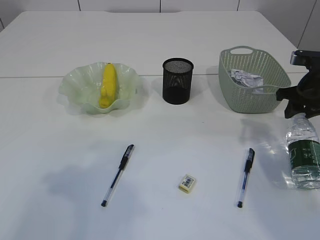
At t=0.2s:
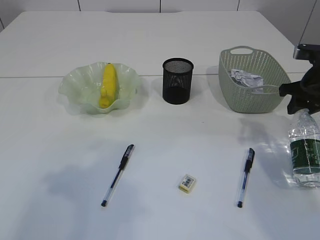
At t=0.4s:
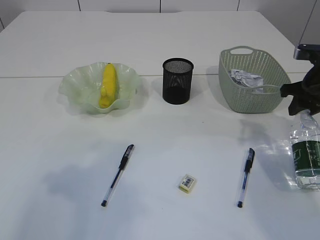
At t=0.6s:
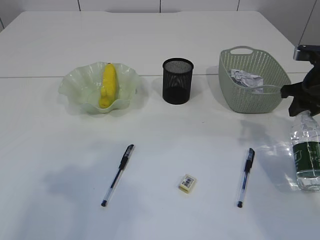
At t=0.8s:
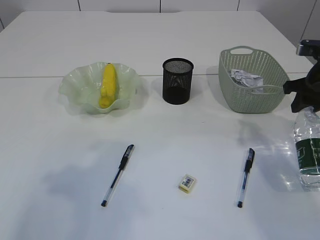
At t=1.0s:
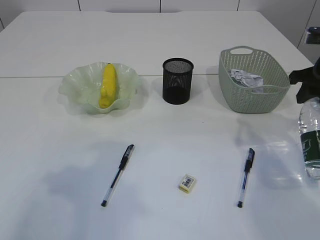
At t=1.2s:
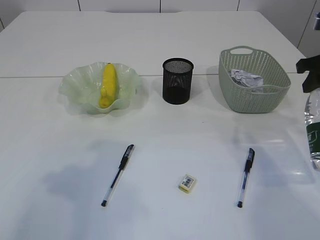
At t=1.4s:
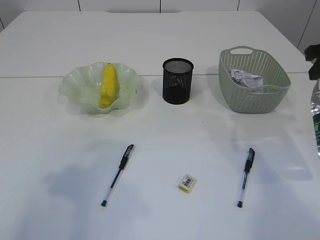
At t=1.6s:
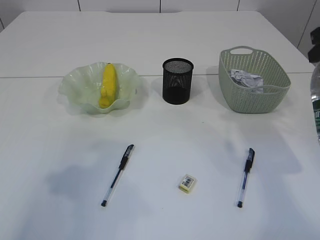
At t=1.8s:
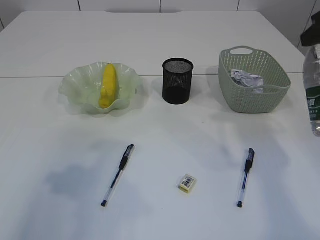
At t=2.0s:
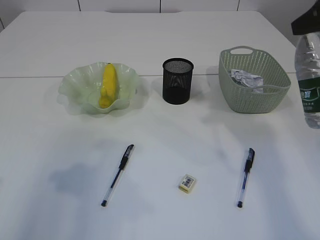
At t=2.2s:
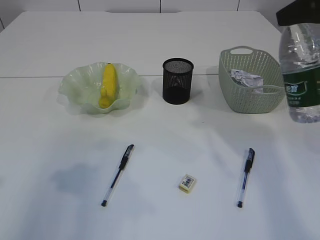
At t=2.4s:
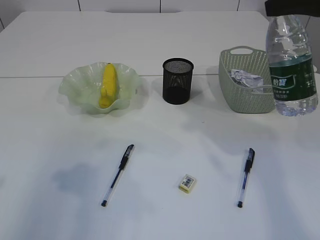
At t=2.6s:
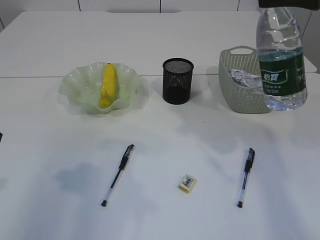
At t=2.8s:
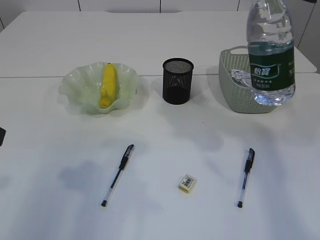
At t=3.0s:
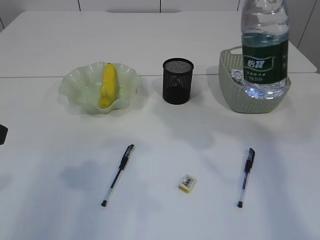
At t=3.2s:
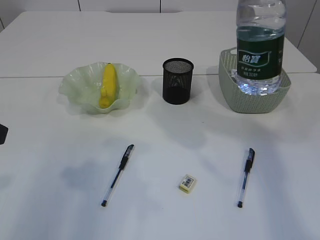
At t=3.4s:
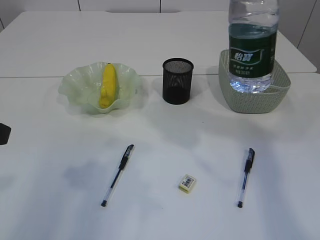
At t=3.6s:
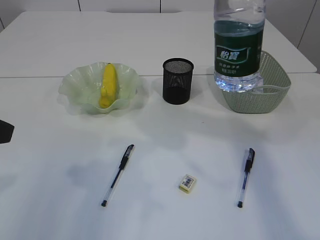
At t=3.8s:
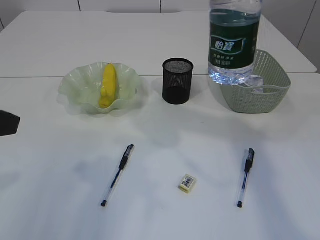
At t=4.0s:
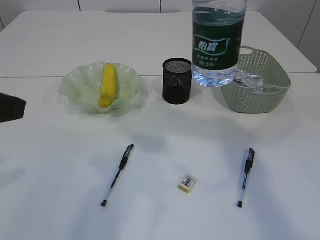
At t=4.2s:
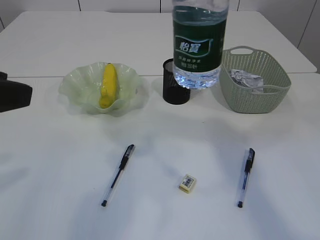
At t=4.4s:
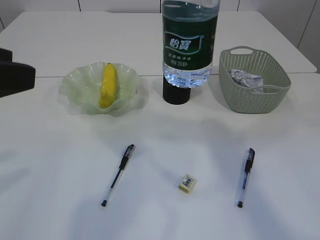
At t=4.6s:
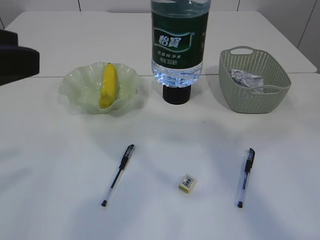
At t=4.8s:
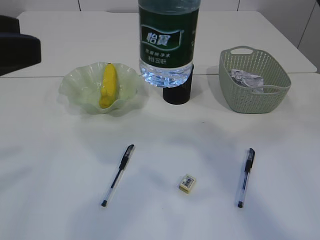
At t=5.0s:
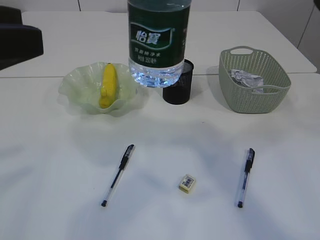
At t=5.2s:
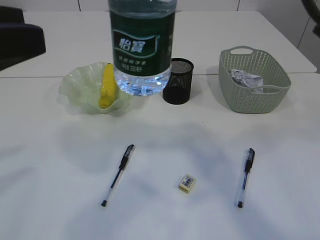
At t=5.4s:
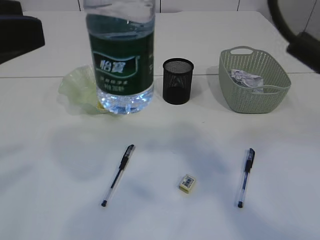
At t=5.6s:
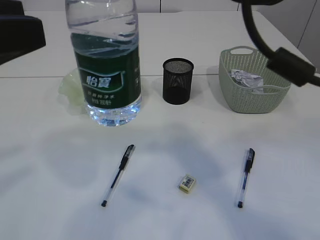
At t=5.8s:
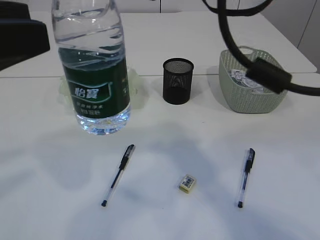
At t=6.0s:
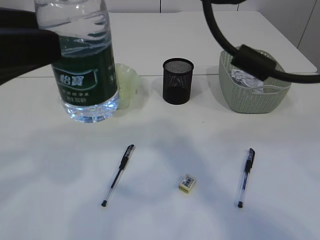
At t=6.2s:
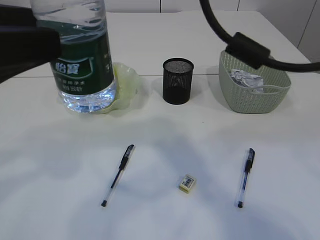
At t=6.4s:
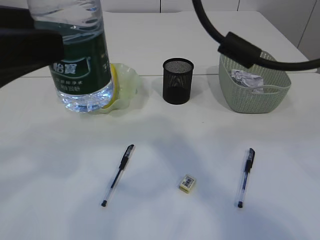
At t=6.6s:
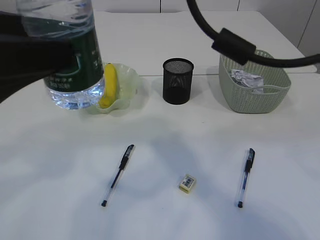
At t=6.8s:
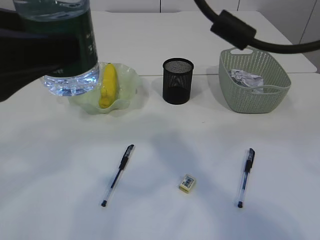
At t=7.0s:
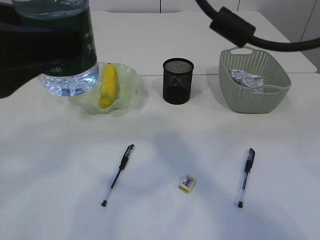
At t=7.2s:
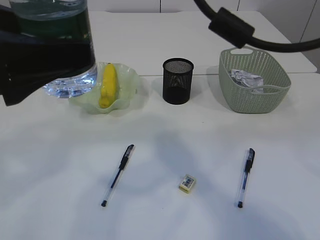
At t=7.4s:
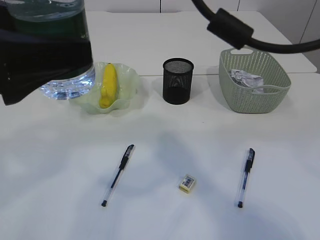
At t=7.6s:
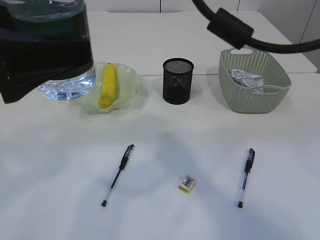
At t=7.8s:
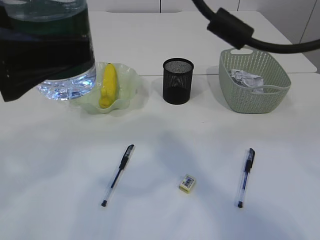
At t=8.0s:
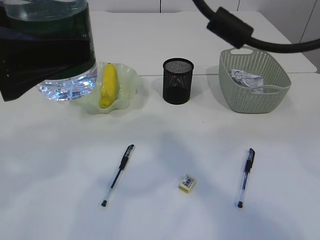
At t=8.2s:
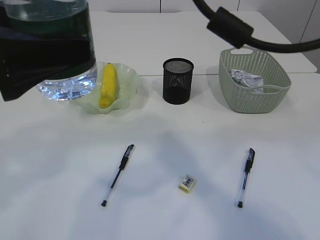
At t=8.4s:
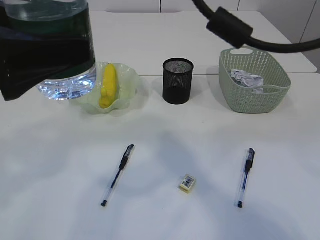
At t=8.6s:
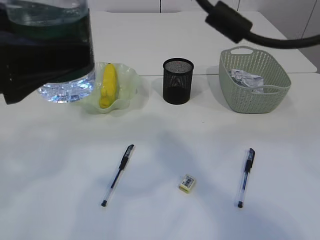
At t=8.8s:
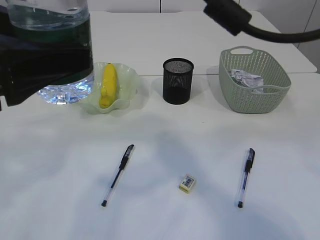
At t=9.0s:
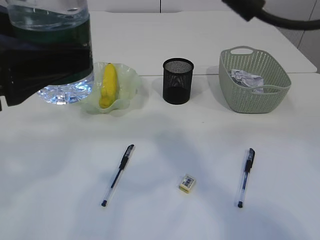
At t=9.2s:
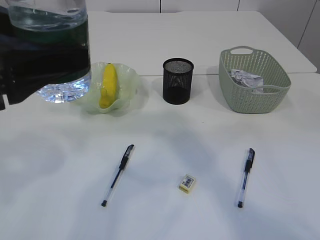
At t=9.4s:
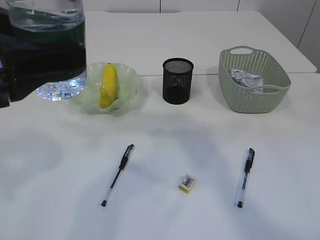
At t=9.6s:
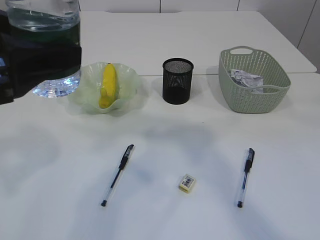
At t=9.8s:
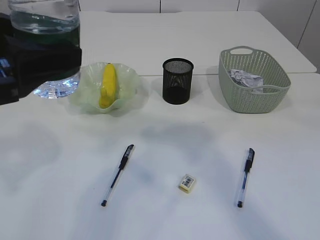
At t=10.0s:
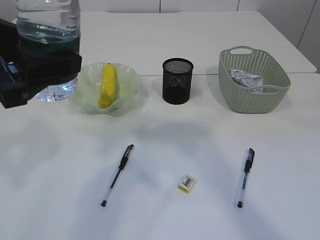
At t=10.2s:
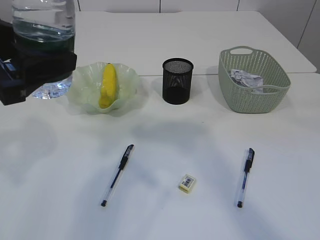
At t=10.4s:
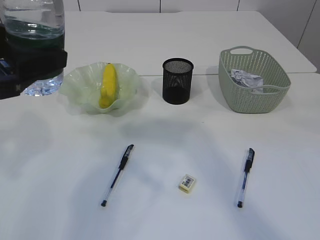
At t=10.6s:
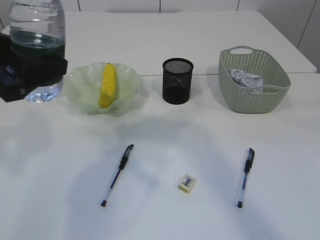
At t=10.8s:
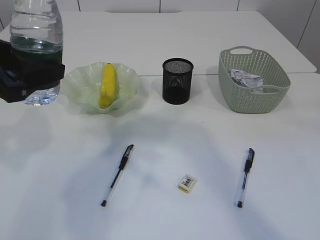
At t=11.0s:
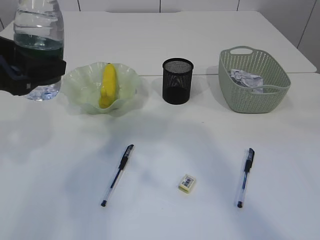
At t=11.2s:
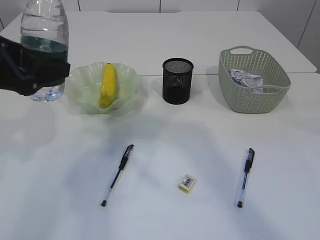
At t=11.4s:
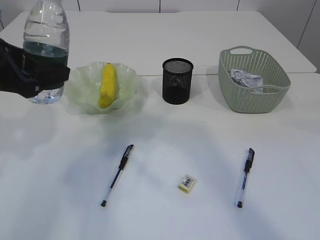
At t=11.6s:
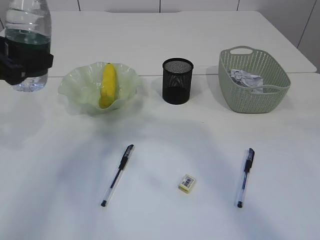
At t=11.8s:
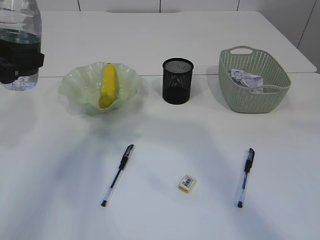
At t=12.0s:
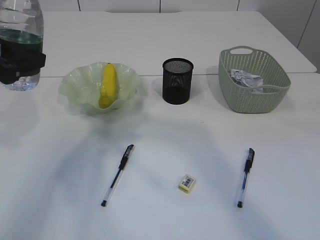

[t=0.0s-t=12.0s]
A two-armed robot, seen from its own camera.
Step, t=1.0s to t=9.8s: transfer the bottle to the left arm.
t=0.0s to t=1.6s: The right gripper shifts roughly 15 cm upward and backward.
t=1.6s to t=3.0s: The right gripper is displaced upward and to the left by some 10 cm.
t=3.0s to t=4.4s: The right gripper travels to the left by about 10 cm. Meanwhile the left gripper shifts by about 5 cm.
t=4.4s to t=6.0s: The right gripper travels to the left by approximately 10 cm.
t=6.0s to t=9.0s: The grippers stay close to where they were, moving slightly.
t=9.0s to t=10.4s: The left gripper moves about 5 cm, while the right gripper moves to the right, about 5 cm.
t=10.4s to t=12.0s: The left gripper goes some 10 cm forward and to the left.

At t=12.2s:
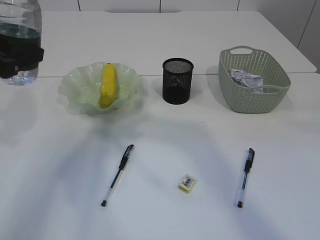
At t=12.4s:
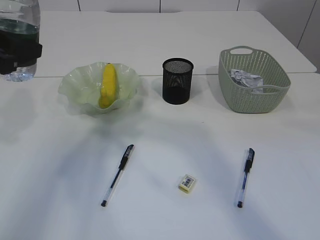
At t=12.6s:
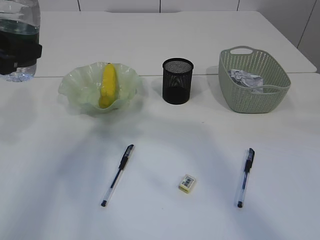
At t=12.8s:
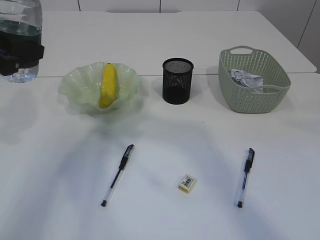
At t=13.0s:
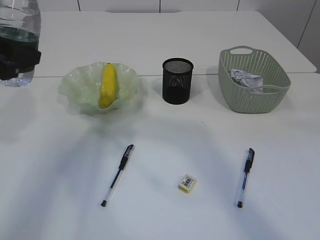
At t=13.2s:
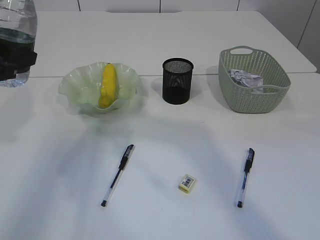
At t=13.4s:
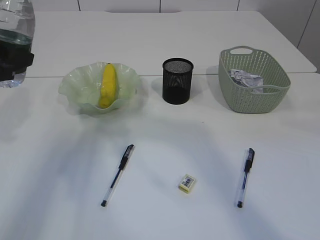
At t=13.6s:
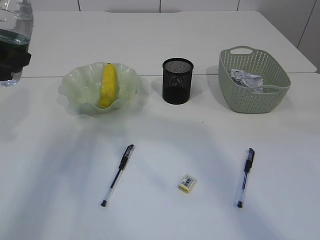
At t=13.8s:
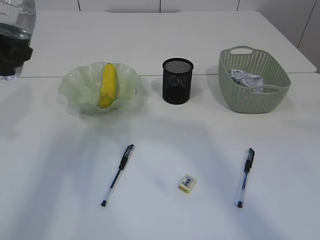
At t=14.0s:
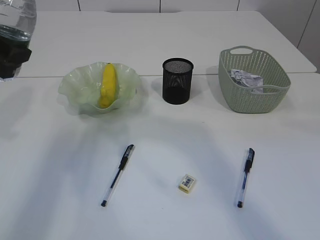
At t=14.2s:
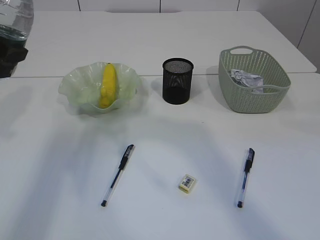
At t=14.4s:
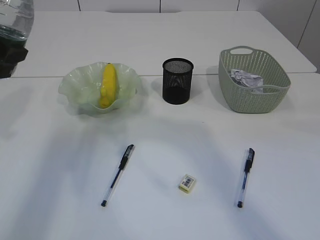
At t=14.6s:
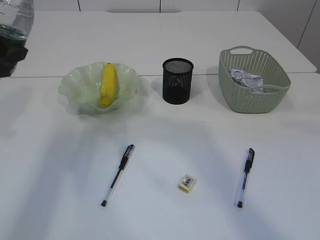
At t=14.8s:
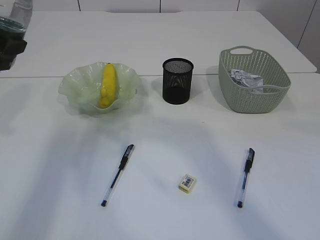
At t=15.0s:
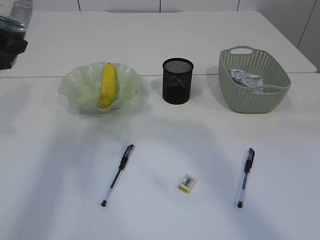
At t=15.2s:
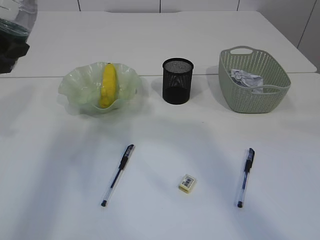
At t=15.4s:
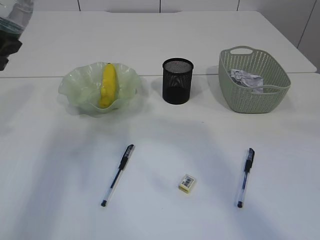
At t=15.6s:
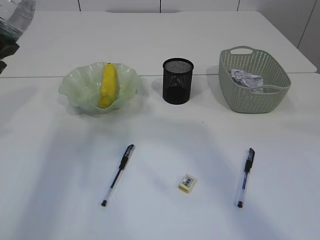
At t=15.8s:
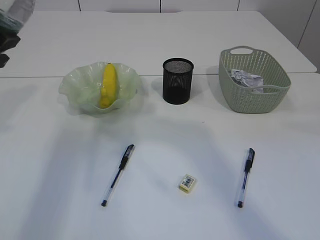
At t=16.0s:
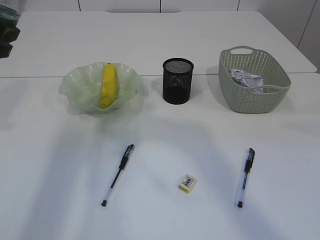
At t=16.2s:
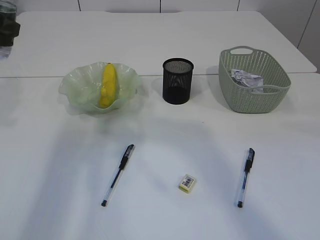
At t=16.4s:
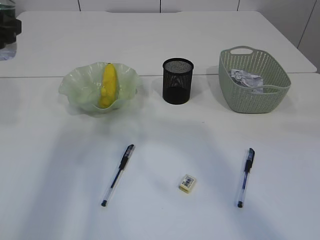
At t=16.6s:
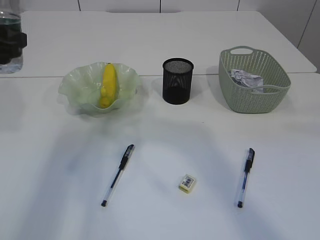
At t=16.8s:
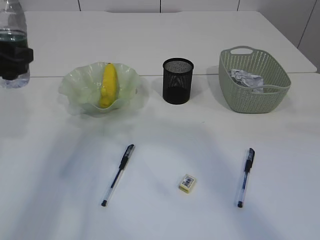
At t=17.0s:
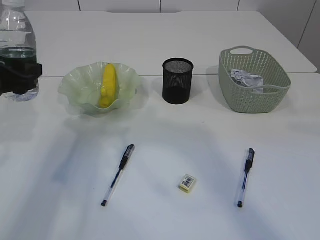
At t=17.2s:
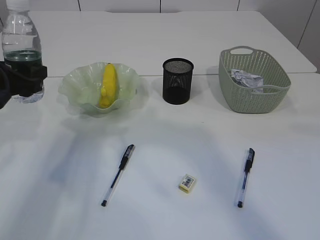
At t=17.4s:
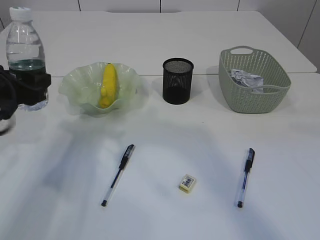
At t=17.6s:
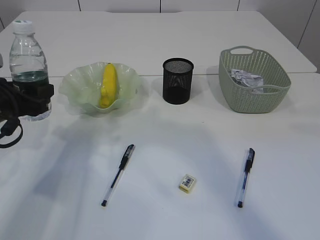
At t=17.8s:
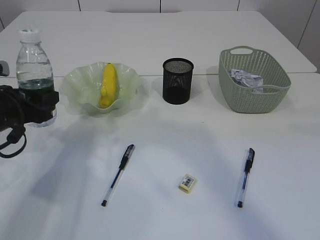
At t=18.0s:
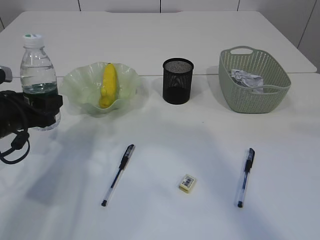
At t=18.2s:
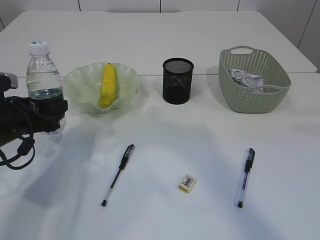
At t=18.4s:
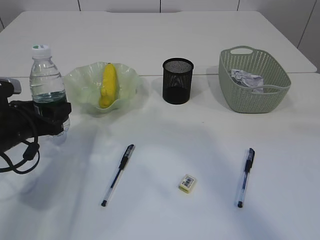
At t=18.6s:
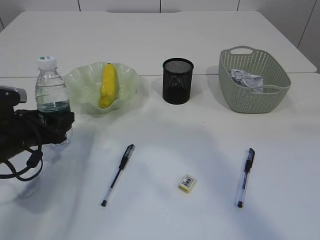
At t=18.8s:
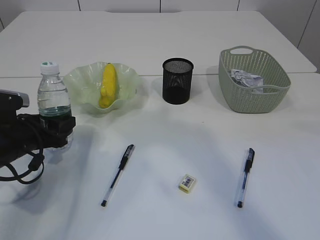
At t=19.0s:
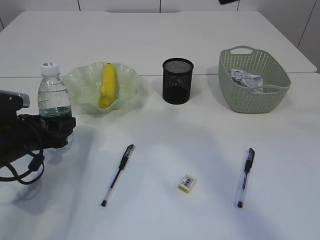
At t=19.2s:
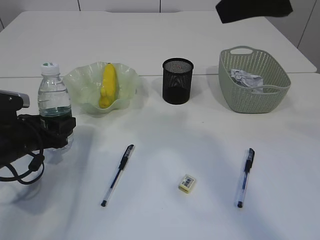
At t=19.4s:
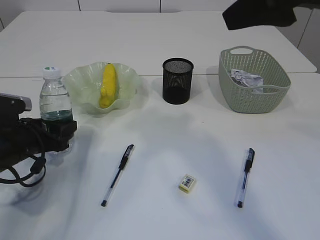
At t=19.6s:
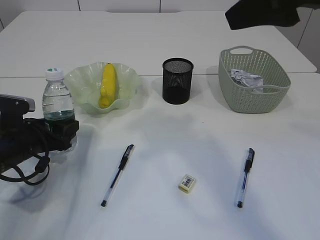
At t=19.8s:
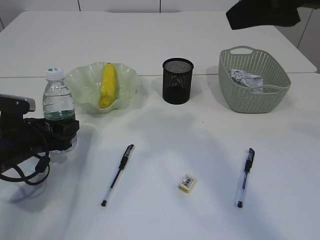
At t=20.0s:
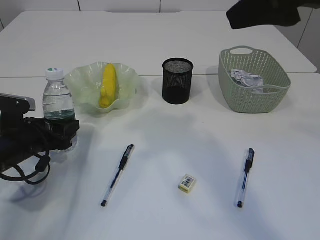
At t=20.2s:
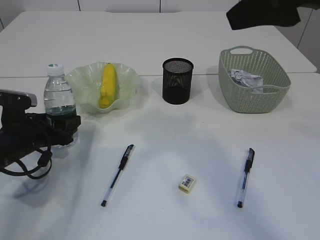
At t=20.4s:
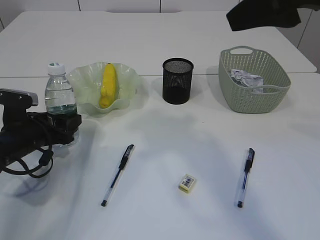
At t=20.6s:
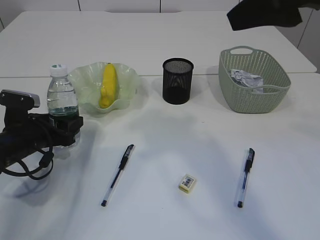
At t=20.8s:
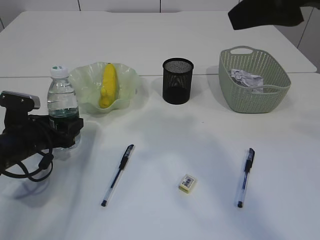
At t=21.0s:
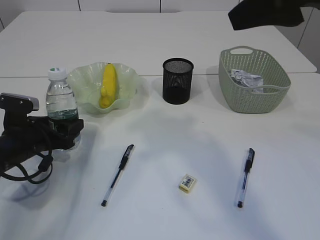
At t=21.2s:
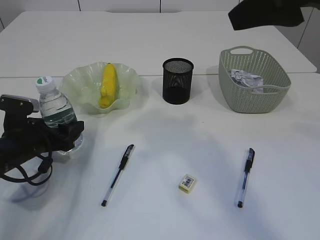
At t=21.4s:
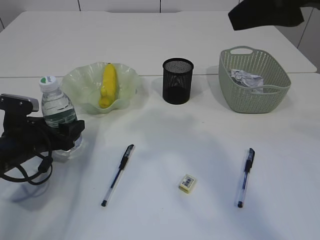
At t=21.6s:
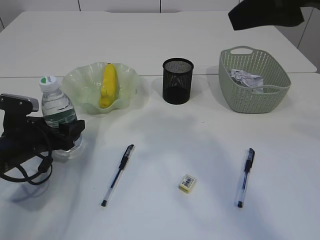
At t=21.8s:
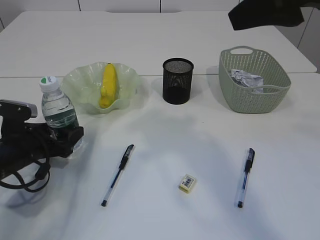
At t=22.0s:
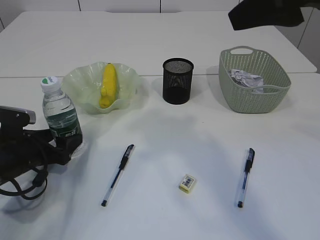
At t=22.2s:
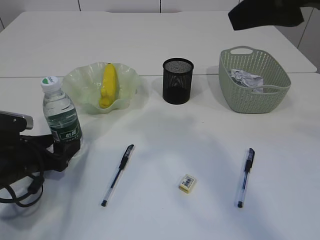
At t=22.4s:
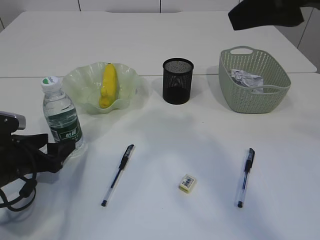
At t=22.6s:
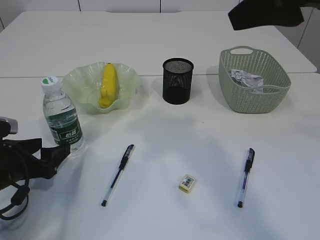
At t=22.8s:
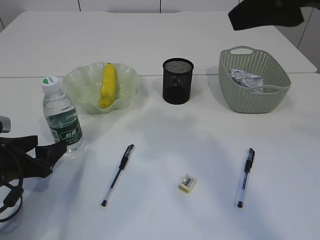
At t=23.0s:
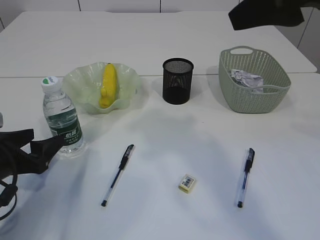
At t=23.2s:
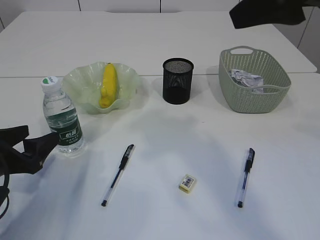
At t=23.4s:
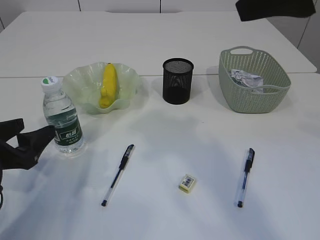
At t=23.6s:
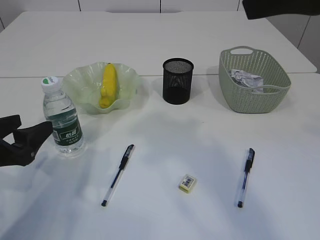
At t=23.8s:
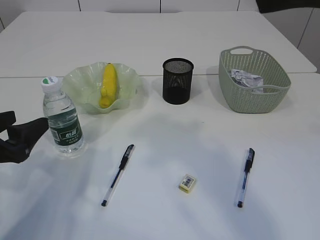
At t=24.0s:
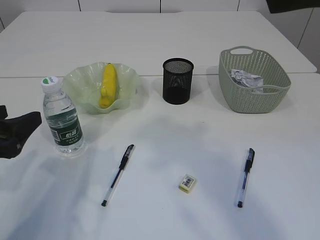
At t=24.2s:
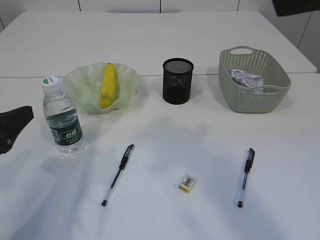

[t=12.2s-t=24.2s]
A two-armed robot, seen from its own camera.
Step, t=12.2s to t=23.2s: Place the bottle.
t=12.2s to t=13.8s: There are only small adjustments of the grippers.
t=16.6s to t=18.2s: The left gripper moves downward, roughly 15 cm.
t=18.2s to t=19.8s: The right gripper shifts by roughly 5 cm. Meanwhile the left gripper moves downward, about 5 cm.
t=19.8s to t=21.2s: Both grippers stay about where they are.
t=21.2s to t=22.6s: The left gripper shifts approximately 5 cm backward.
t=22.6s to t=24.2s: The right gripper ends up about 5 cm from where it was, while the left gripper moves upward and backward, roughly 10 cm.
